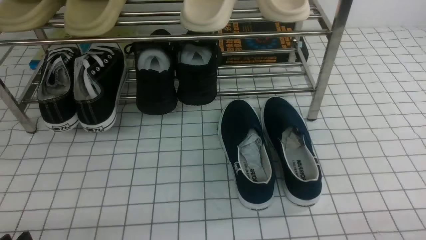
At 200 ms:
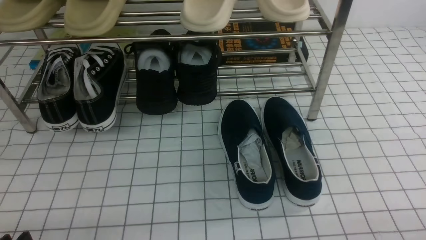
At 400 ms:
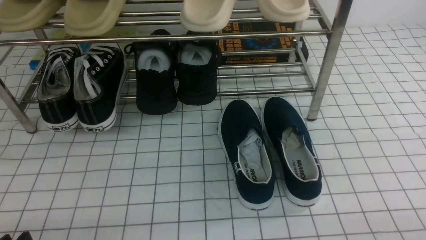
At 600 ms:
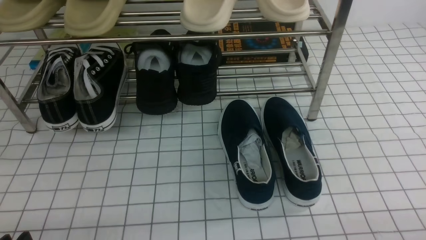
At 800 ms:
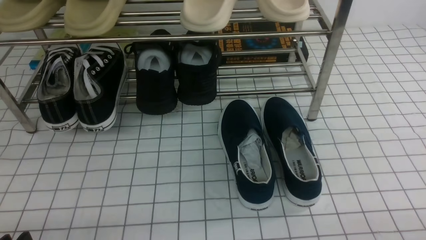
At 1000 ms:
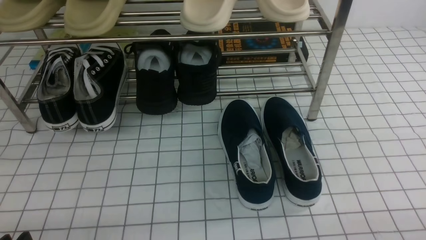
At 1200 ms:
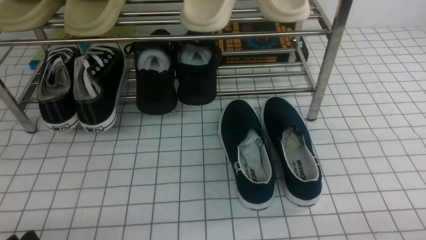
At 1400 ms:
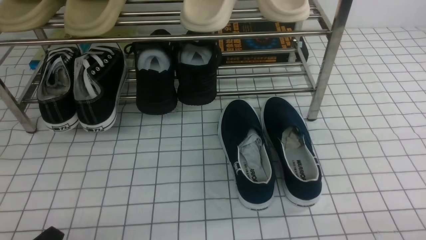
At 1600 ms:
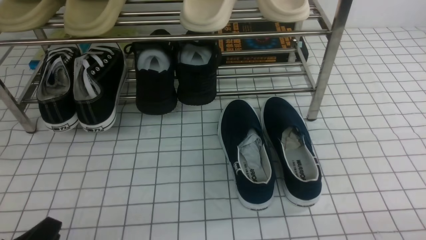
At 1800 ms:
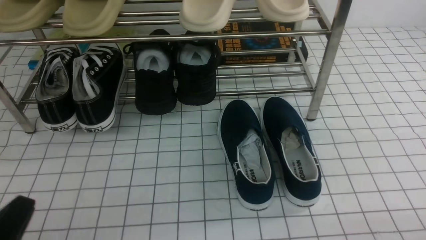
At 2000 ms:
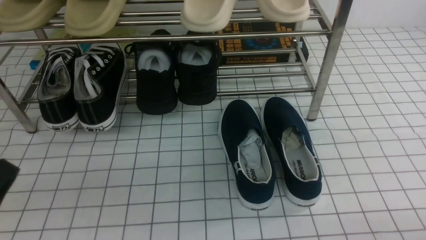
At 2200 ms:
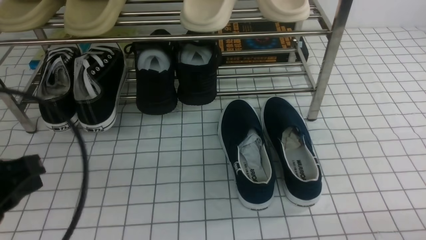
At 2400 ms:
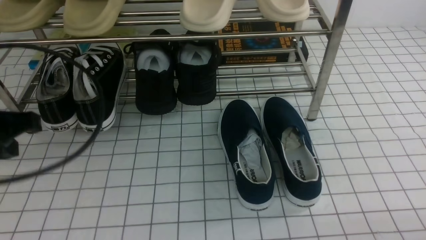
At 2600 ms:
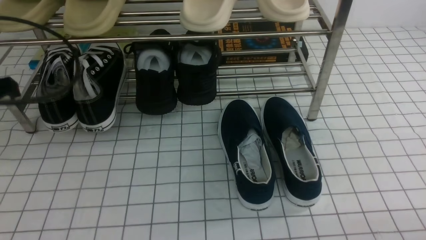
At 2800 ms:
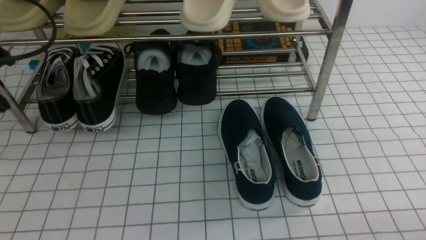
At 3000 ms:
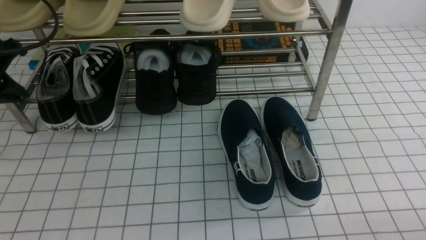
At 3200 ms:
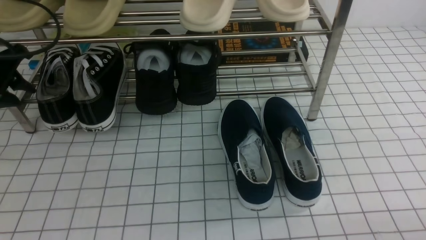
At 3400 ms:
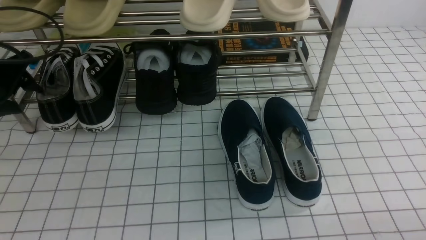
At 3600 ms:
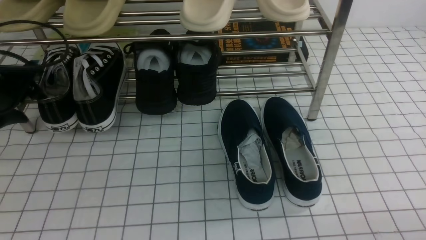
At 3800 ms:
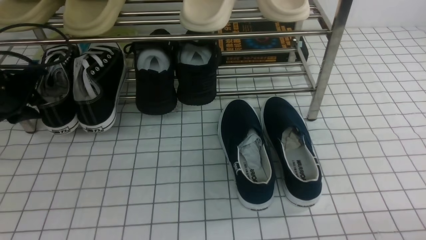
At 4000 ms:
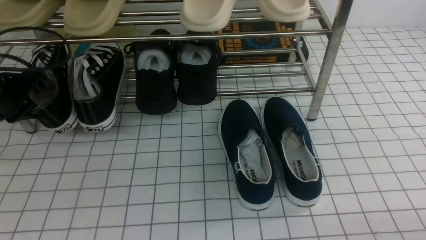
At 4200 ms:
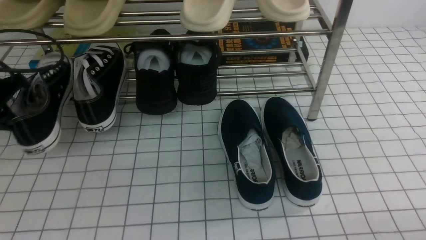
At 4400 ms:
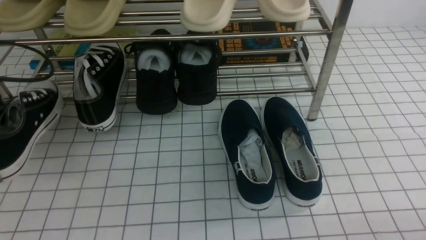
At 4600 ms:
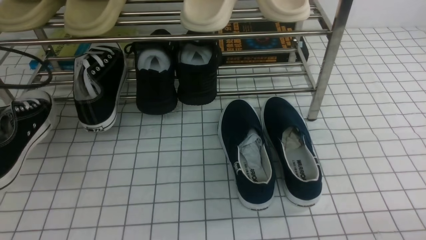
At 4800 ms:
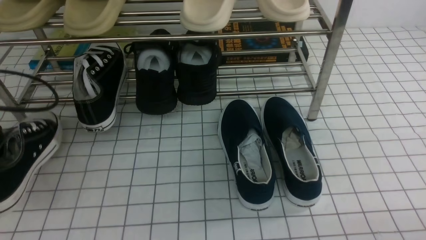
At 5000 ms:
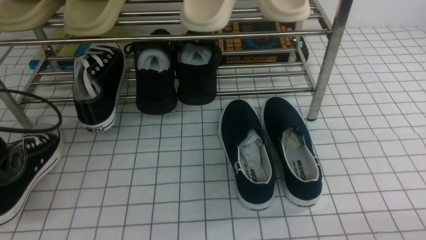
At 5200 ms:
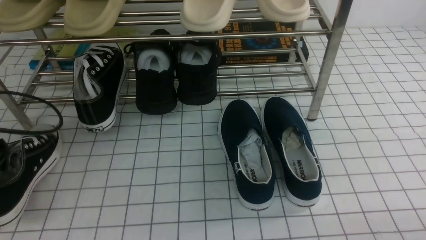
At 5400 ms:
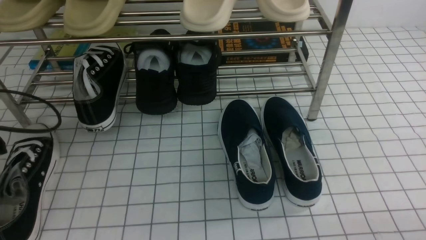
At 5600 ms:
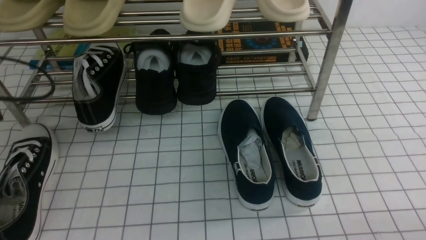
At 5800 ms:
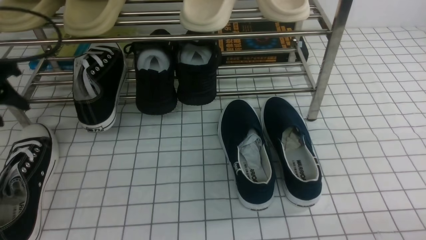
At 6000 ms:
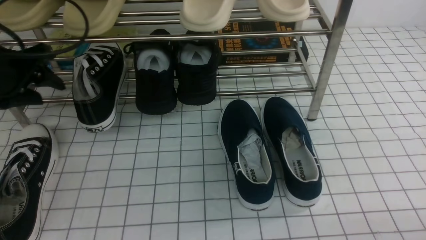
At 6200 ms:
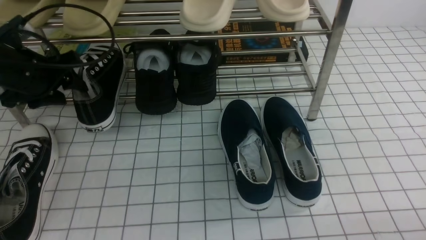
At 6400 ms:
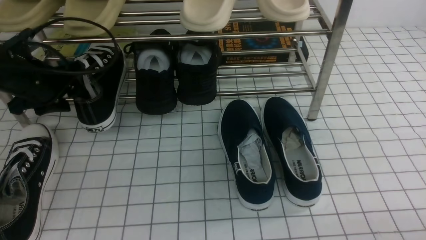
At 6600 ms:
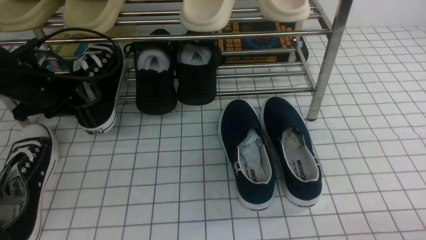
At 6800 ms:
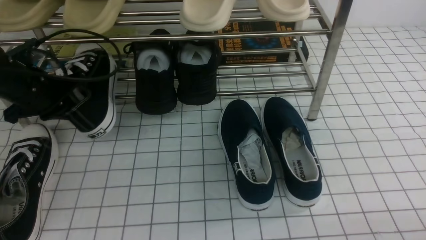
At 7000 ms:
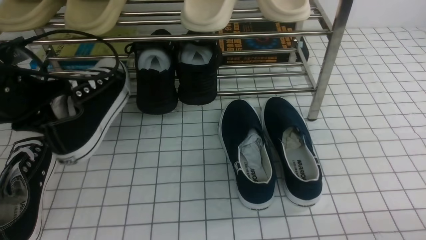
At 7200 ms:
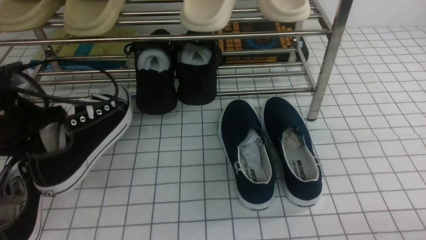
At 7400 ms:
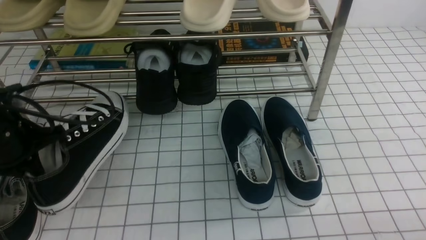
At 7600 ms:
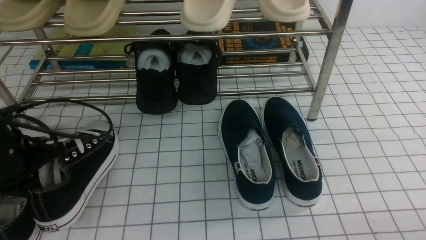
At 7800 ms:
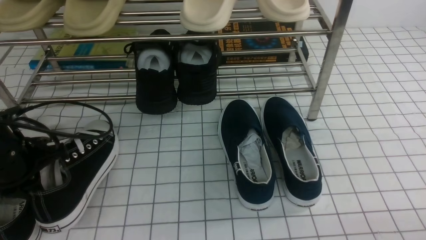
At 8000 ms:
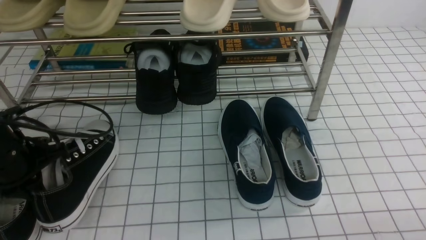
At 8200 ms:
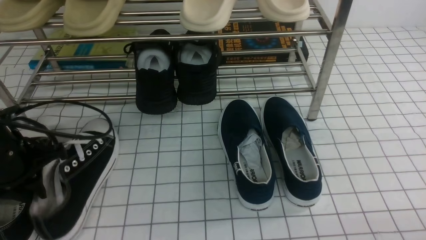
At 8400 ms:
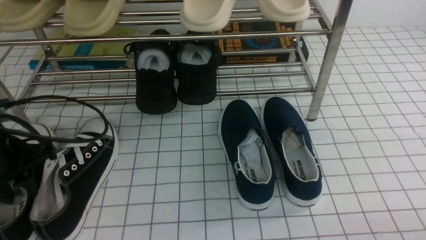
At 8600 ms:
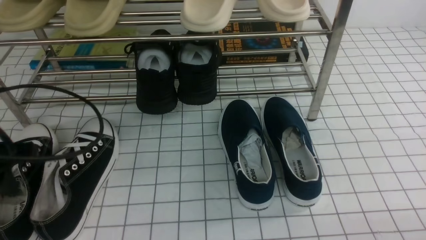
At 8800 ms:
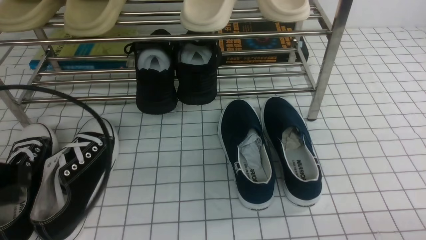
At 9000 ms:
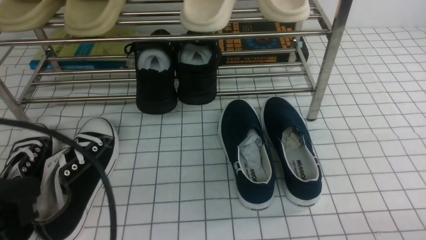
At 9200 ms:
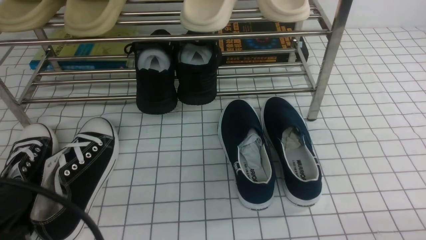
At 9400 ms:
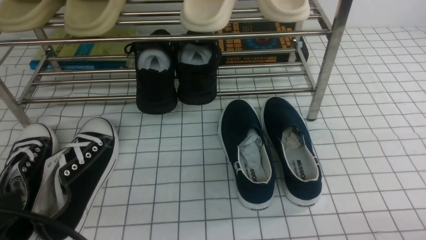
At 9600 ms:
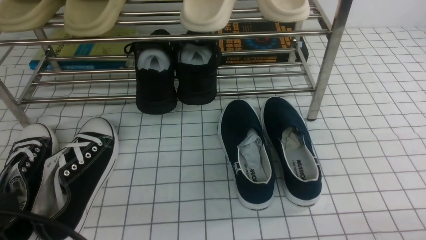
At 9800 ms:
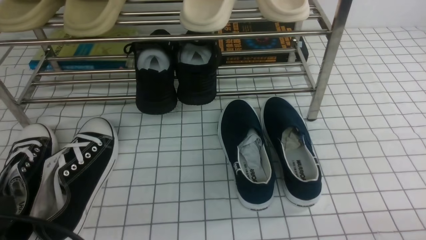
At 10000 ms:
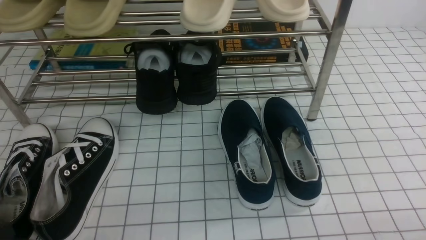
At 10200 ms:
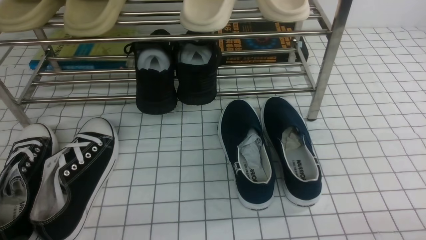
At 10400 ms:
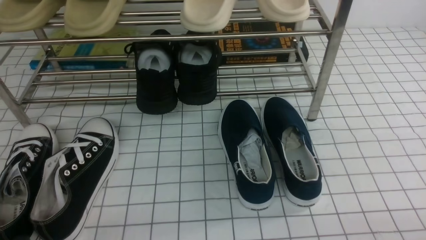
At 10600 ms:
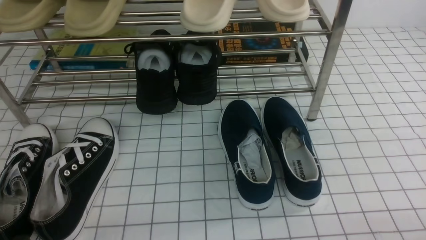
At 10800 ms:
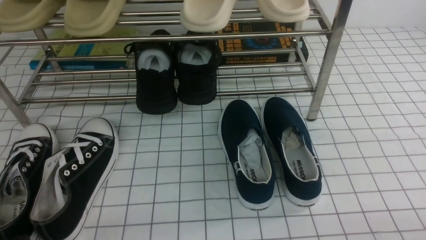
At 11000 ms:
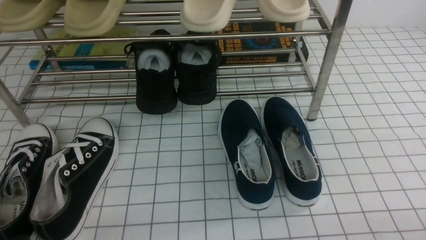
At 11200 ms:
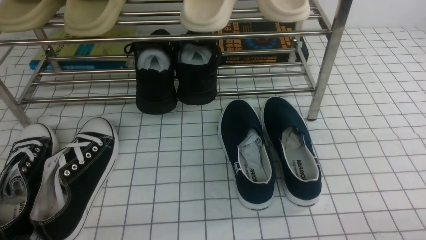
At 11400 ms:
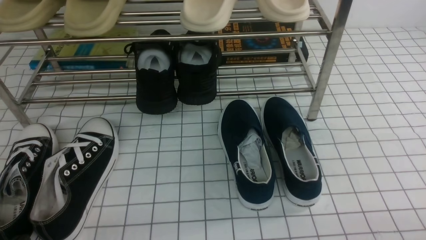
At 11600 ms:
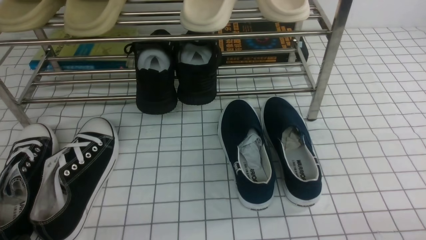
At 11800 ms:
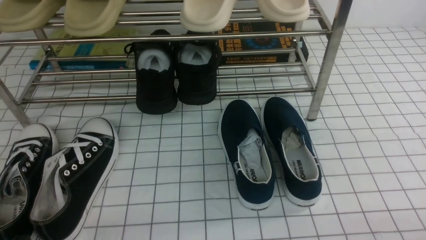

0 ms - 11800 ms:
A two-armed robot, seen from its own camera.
Step, 0 ms - 3800 ms: use the left arm to clamp a shoe on the left side of the shoe rack.
Step, 4000 ms - 5400 ms: Use your left arm to remove the clamped shoe from the shoe rack and put it down.
Step, 5600 ms - 6600 ms: use the left arm to clamp a shoe on the left side of the shoe rack.
Step, 6800 ms - 8600 ms: Use your left arm to remove the clamped shoe from the shoe rack and put it down.
1400 ms - 3000 ms: The left gripper moves forward and upward, about 30 cm, and closes and opens again.
3000 ms - 4400 ms: The left gripper opens, then closes again.
4400 ms - 6000 ms: The left gripper travels forward by about 5 cm, and opens.
6000 ms - 7400 ms: The left gripper shifts approximately 10 cm backward and downward, and closes.
7400 ms - 8800 ms: The left gripper travels backward and upward by roughly 15 cm, and opens and closes again.
8800 ms - 10400 ms: The left gripper heads downward and backward, covering some 15 cm.
10400 ms - 11800 ms: Neither gripper changes place.
